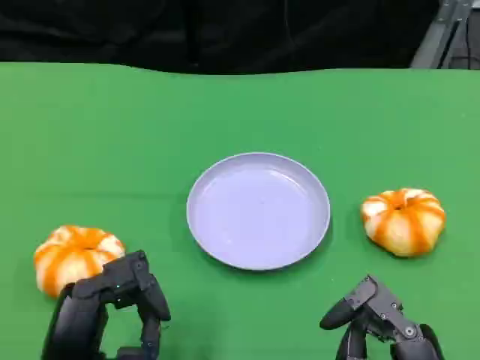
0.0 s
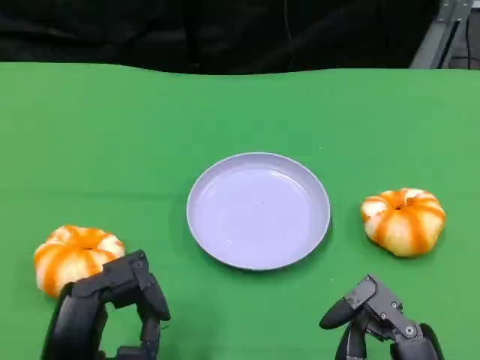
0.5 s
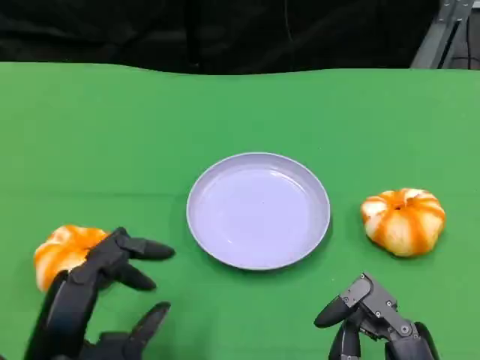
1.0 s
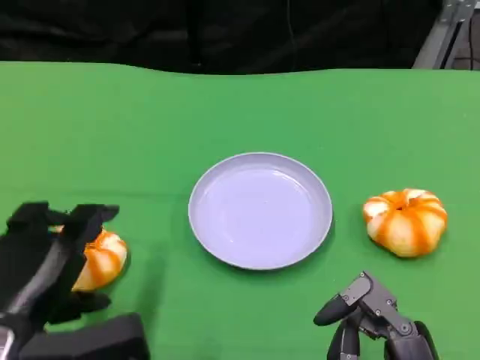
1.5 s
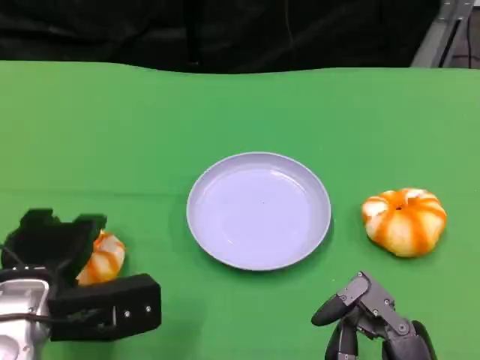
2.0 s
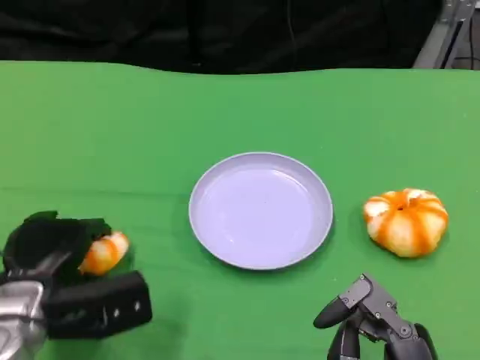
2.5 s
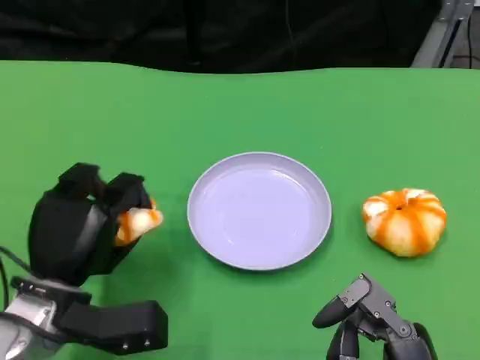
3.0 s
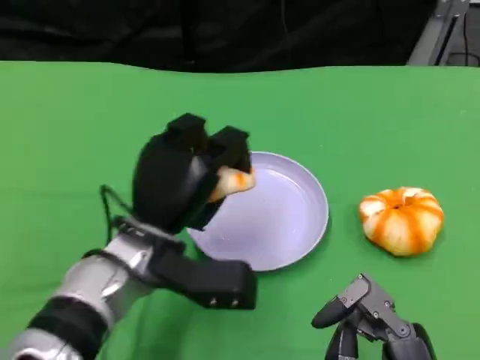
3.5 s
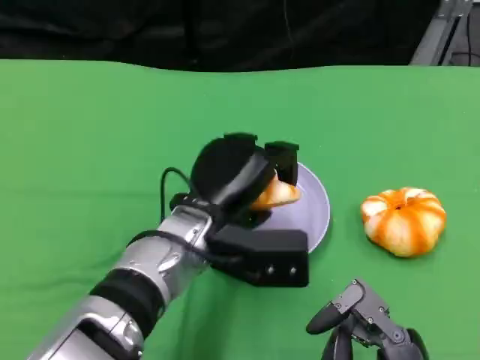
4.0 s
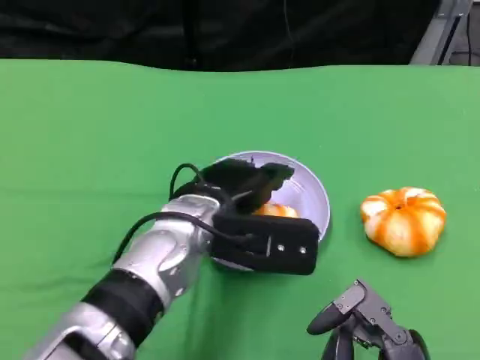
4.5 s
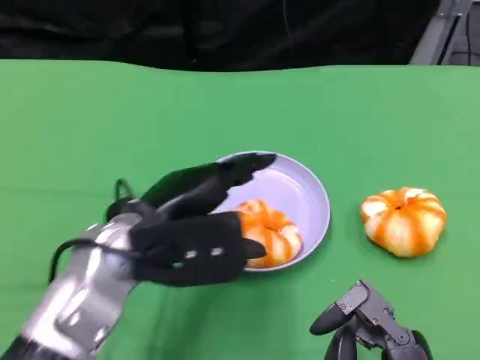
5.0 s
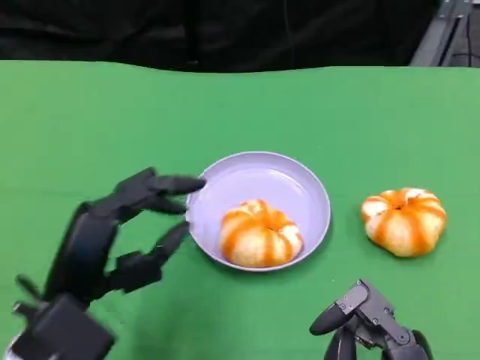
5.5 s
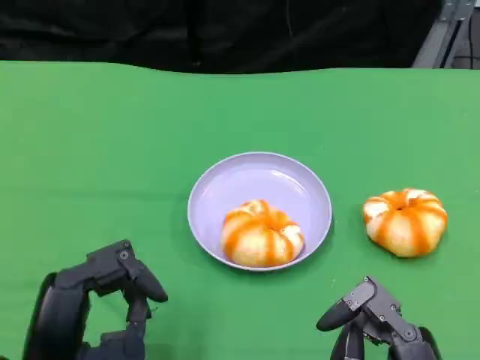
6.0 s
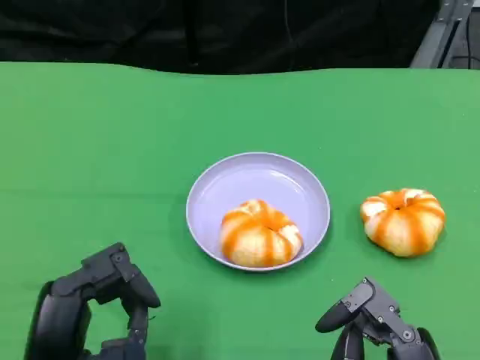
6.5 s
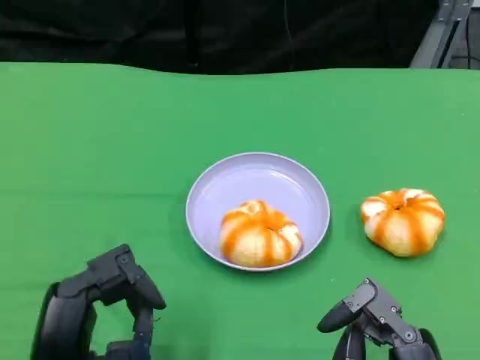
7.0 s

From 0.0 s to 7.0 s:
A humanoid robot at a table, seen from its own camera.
Task of the whole recording: Grasp the bread from the table and place it into the plate.
From 0.0 s to 2.0 s: The left hand shifts approximately 10 cm forward.
From 2.0 s to 3.5 s: The left hand goes about 10 cm to the right.
From 3.5 s to 5.0 s: The left hand travels upward by roughly 5 cm.
From 5.0 s to 7.0 s: The left hand heads backward, downward and to the left, covering some 15 cm.
